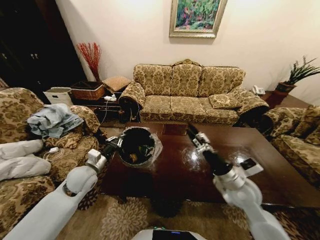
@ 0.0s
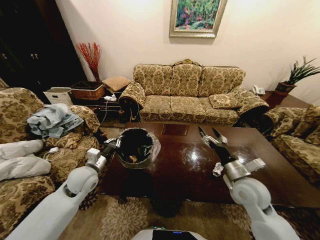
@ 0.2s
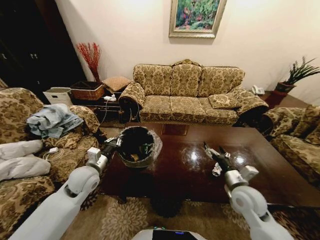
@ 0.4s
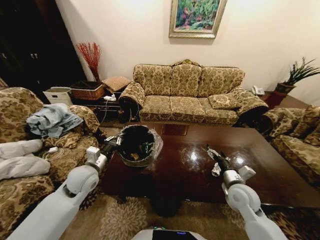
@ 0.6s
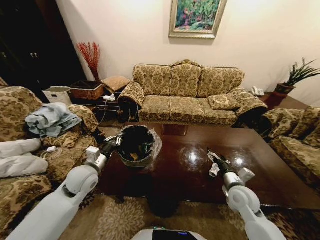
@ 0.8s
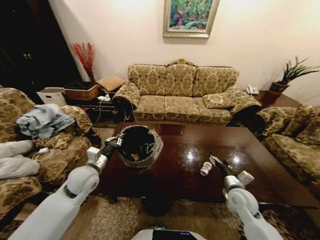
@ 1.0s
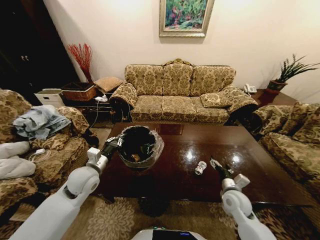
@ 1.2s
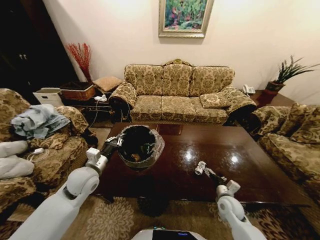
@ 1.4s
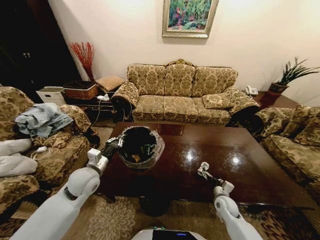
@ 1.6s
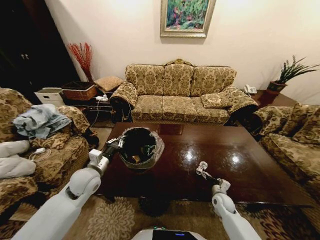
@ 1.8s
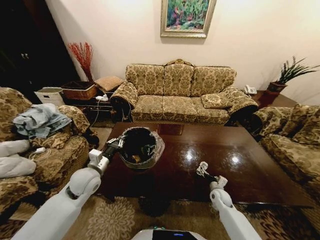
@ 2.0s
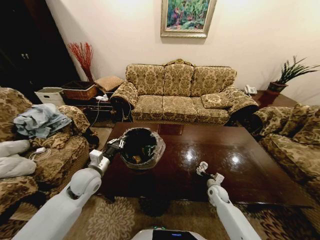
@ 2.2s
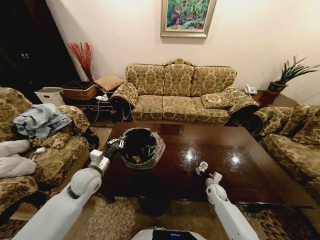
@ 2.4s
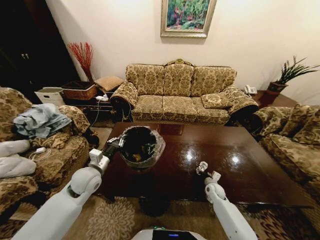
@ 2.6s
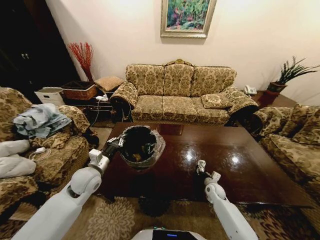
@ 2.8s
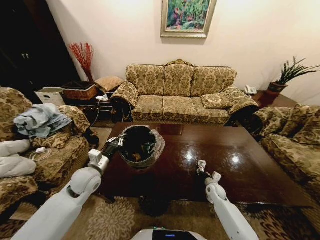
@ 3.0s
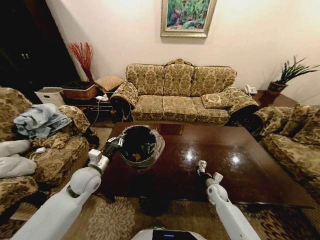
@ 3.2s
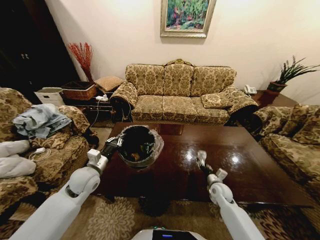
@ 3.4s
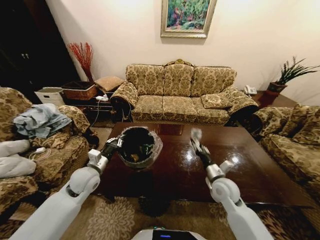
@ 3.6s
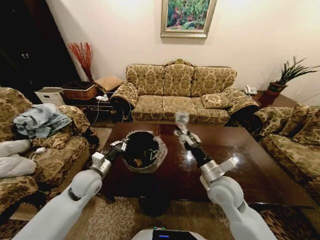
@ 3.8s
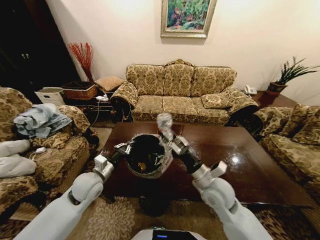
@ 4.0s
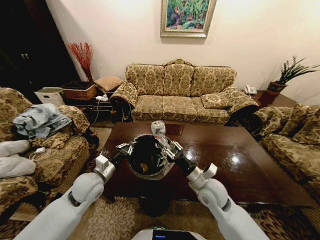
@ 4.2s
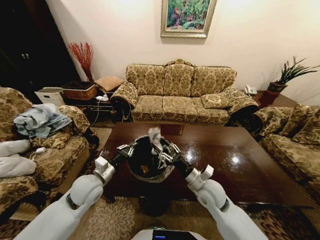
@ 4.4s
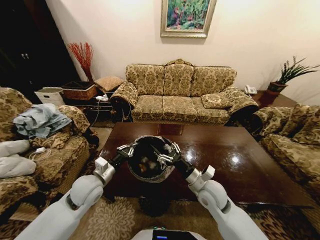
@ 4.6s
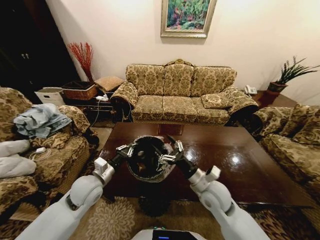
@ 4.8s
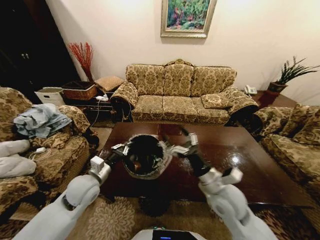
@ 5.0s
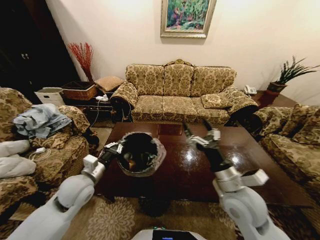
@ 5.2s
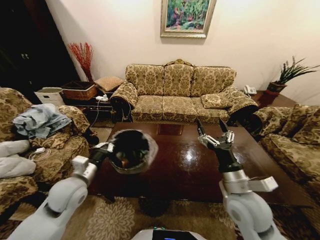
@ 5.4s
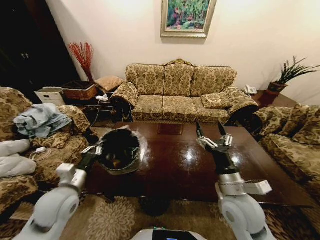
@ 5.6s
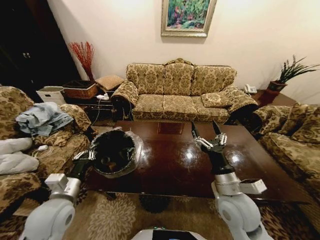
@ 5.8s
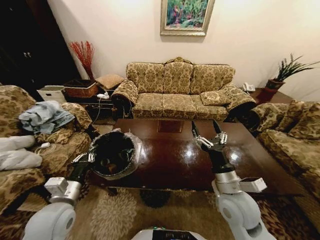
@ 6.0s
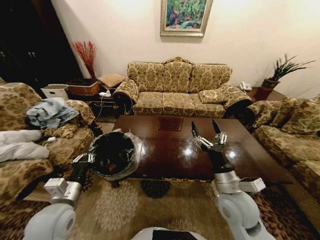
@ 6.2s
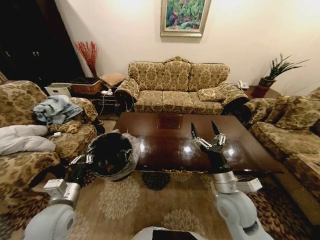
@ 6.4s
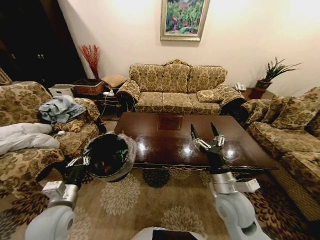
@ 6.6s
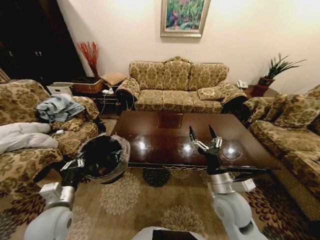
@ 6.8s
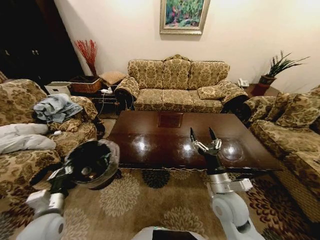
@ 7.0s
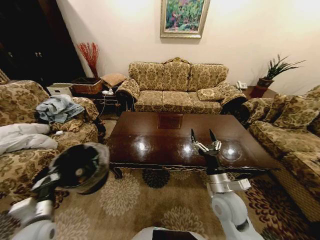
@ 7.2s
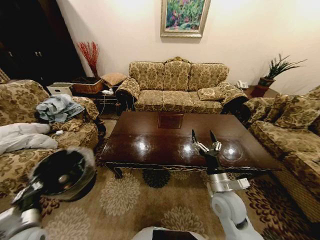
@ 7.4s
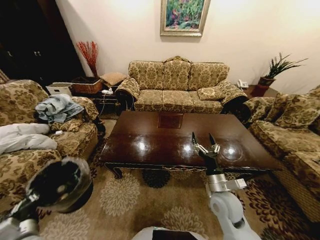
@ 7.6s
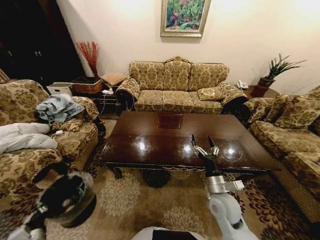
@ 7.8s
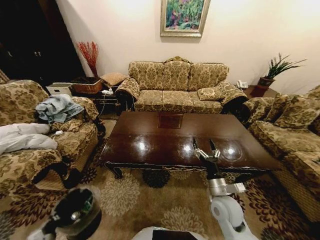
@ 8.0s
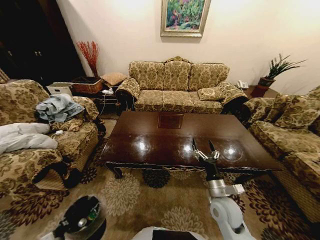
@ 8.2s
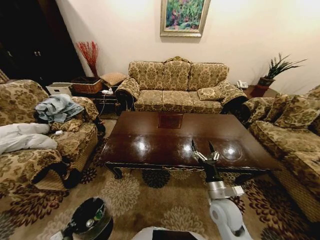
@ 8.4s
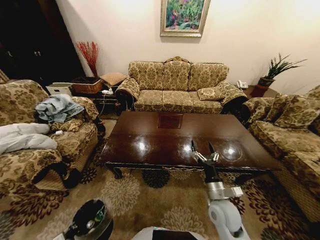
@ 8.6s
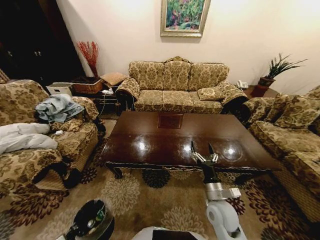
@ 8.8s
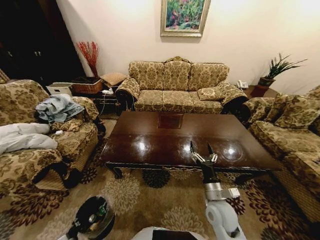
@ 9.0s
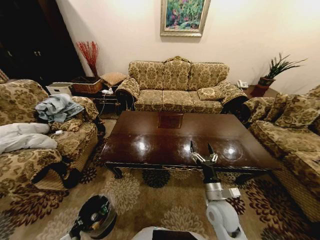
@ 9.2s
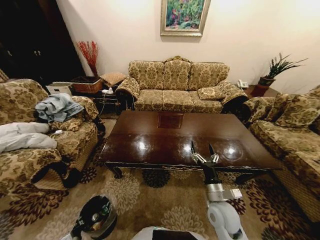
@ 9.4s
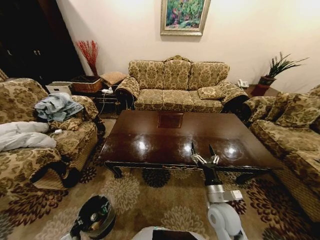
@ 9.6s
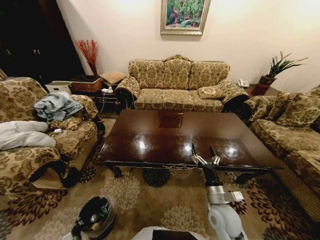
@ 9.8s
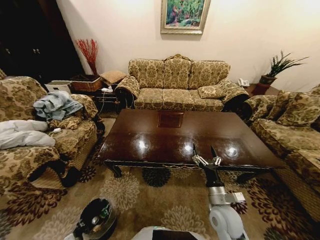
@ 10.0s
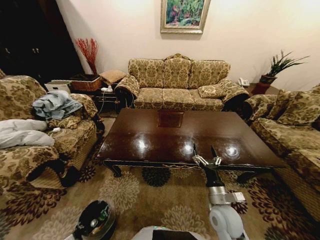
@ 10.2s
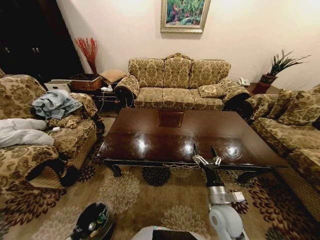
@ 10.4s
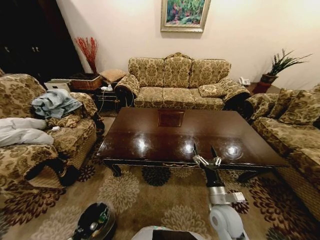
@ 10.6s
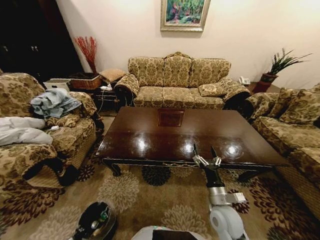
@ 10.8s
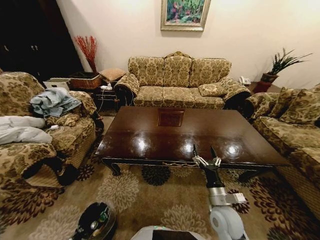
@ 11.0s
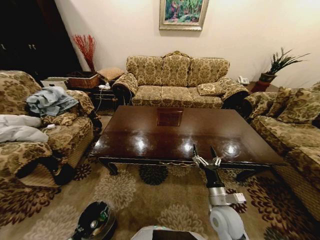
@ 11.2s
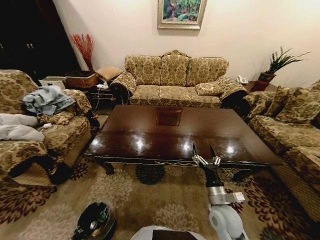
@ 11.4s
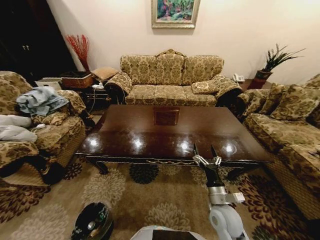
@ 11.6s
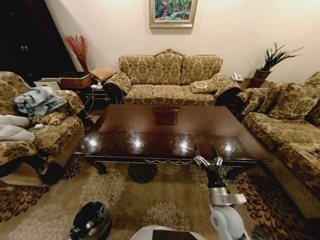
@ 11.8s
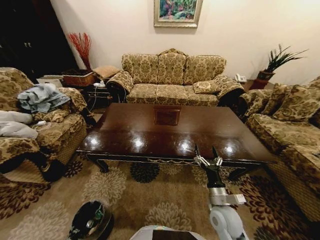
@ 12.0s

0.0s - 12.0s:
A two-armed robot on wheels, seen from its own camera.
Task of the whole recording: Move to the front of the table and place the trash on the table into the trash bin.
0.0s - 1.6s: The right gripper heads downward, covering approximately 25 cm.
1.6s - 3.0s: The right gripper heads forward, covering approximately 10 cm, and closes.
3.0s - 4.4s: The right gripper moves upward and to the left, roughly 25 cm.
4.4s - 6.0s: The left gripper travels backward by about 10 cm. The right gripper shifts roughly 10 cm upward and backward, and opens.
6.0s - 7.6s: The left gripper moves to the left, downward and backward, approximately 20 cm; the right gripper goes roughly 10 cm downward.
7.6s - 9.0s: The left gripper shifts about 30 cm downward.

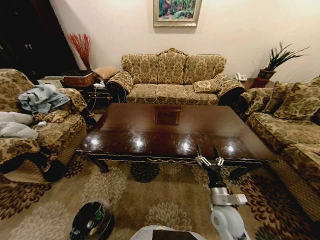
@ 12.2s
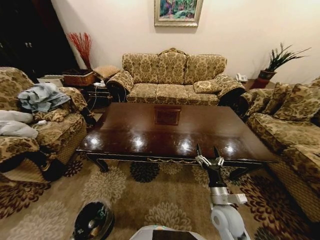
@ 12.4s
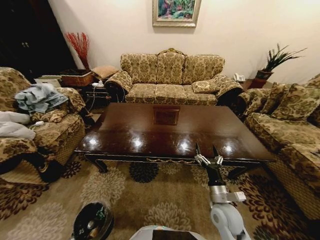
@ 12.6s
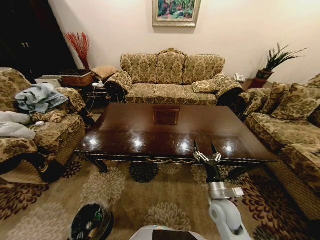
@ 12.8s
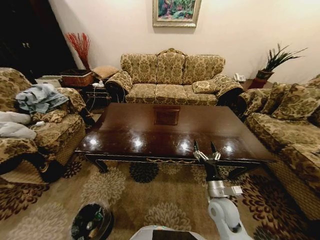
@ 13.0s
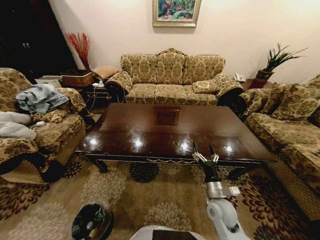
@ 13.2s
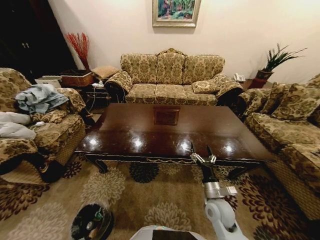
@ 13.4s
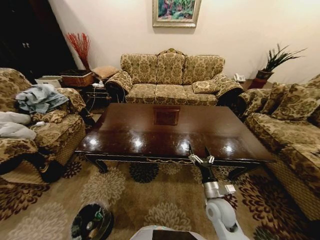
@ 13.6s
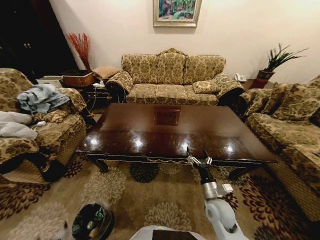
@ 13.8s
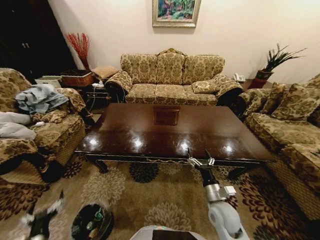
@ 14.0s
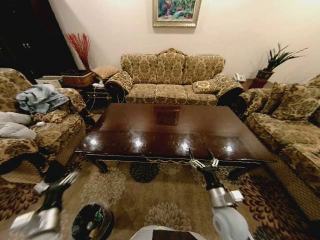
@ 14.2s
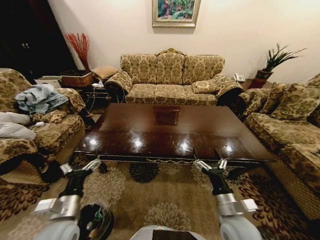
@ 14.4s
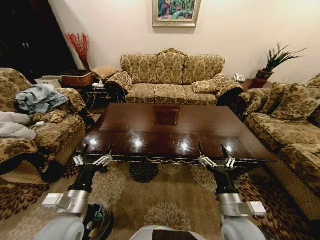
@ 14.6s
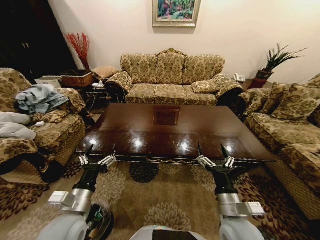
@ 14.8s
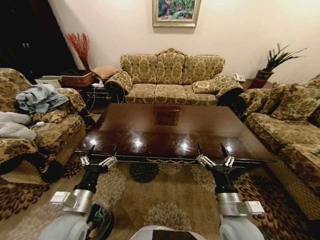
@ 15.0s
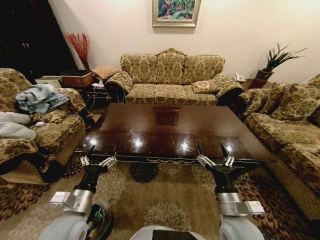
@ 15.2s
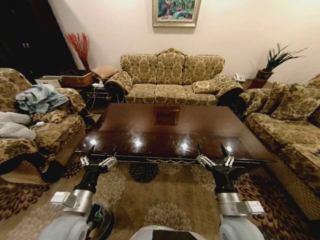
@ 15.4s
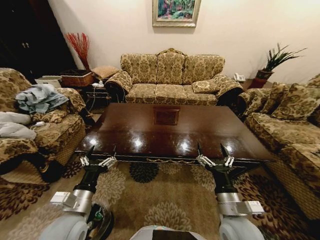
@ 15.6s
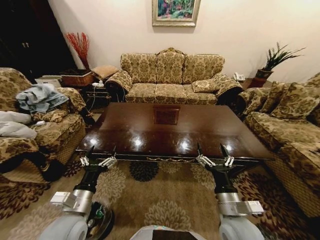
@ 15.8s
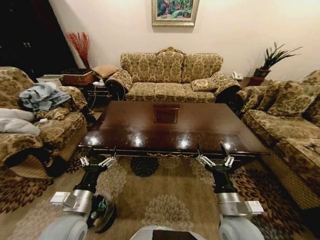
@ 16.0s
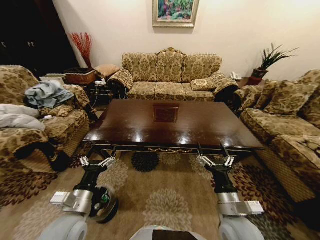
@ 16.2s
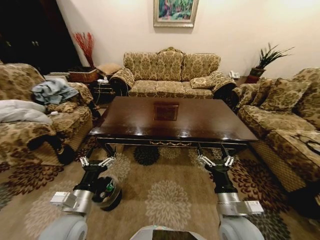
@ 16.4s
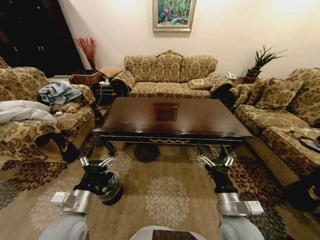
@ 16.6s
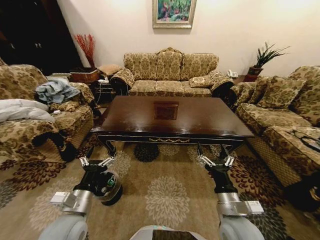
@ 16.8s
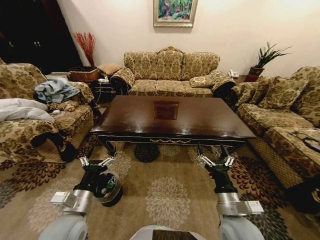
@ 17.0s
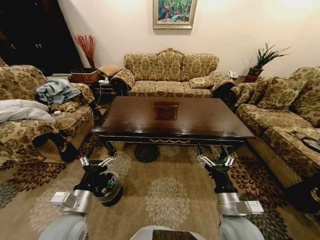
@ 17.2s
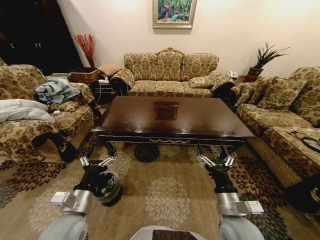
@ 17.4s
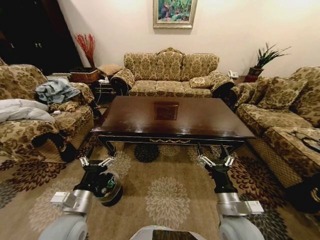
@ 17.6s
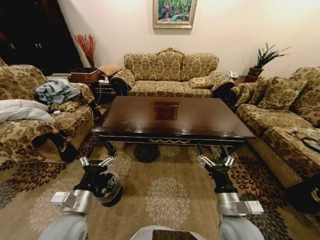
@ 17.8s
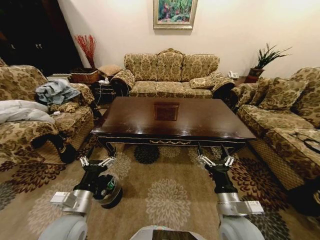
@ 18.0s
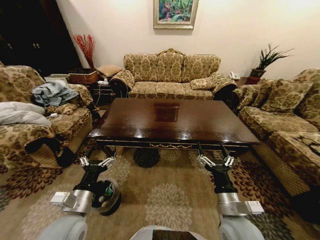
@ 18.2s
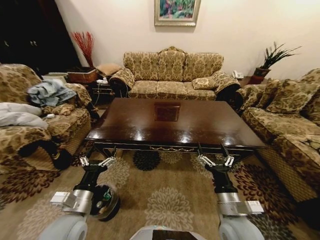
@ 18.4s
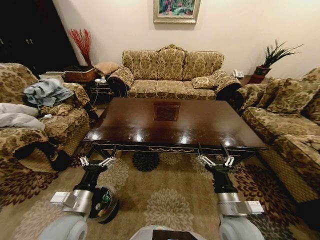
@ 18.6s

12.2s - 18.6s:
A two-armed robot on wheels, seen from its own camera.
Task of the whole recording: Move to the front of the table and place the trash on the table into the trash bin.
12.2s - 13.8s: The left gripper is displaced upward by about 25 cm, and opens.
13.8s - 15.4s: The left gripper goes about 30 cm upward, forward and to the right. Meanwhile the right gripper goes some 10 cm upward and backward.

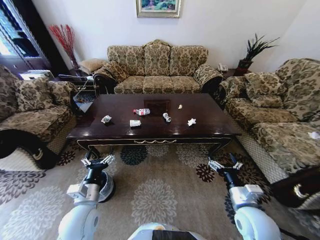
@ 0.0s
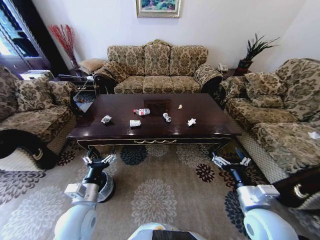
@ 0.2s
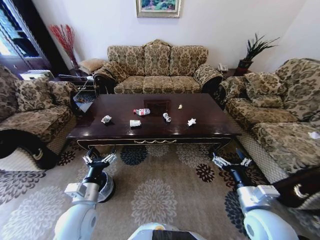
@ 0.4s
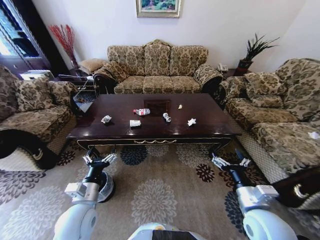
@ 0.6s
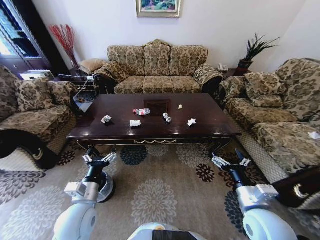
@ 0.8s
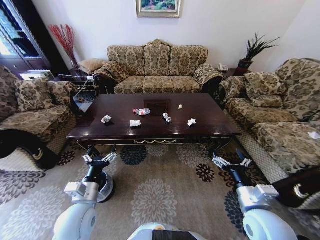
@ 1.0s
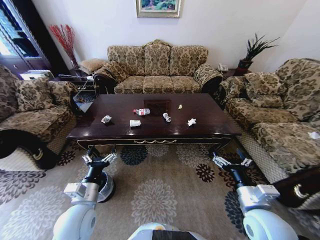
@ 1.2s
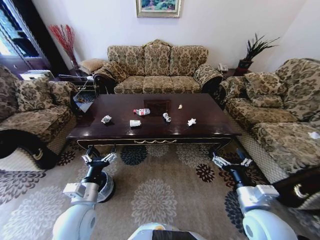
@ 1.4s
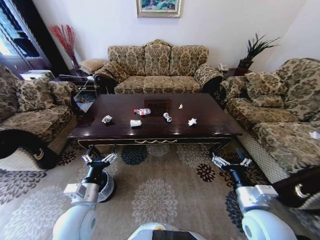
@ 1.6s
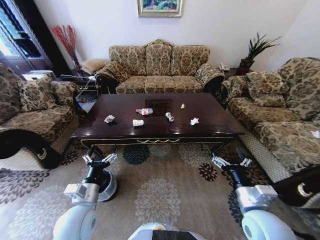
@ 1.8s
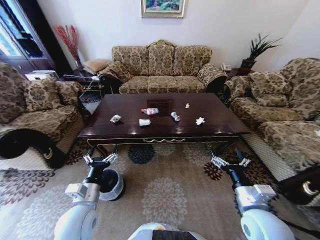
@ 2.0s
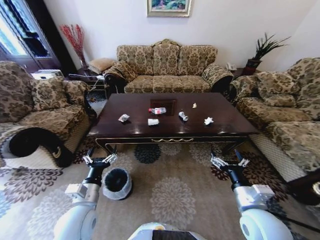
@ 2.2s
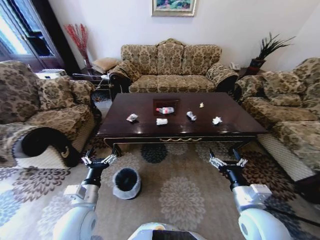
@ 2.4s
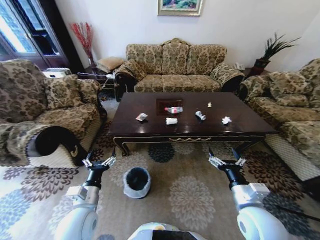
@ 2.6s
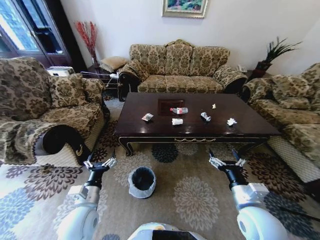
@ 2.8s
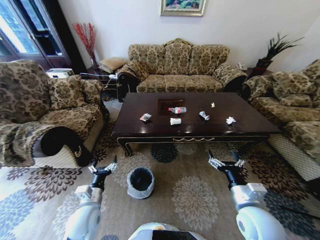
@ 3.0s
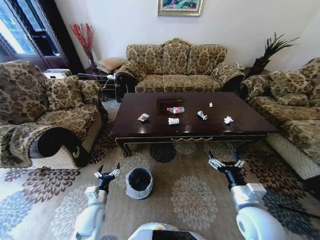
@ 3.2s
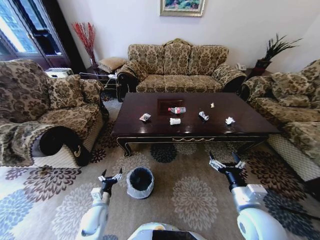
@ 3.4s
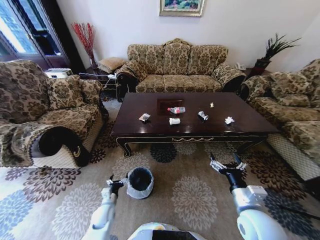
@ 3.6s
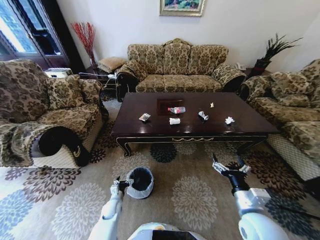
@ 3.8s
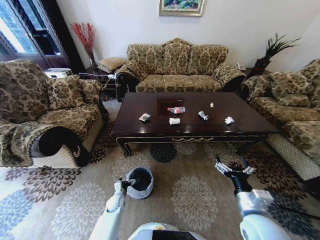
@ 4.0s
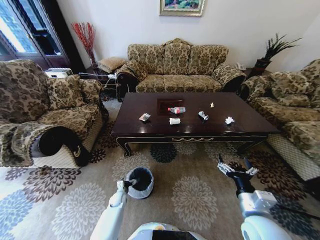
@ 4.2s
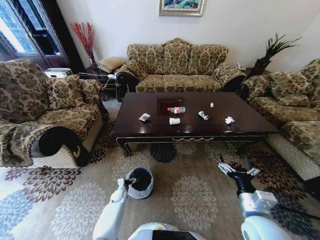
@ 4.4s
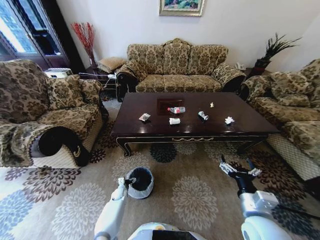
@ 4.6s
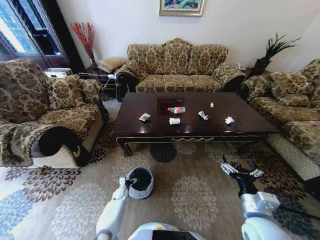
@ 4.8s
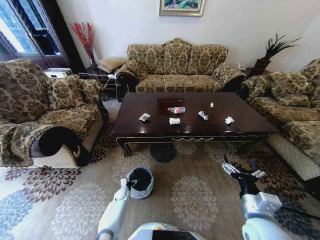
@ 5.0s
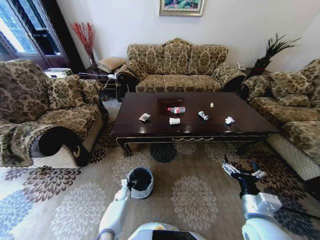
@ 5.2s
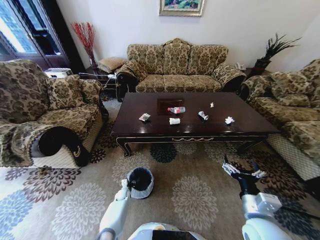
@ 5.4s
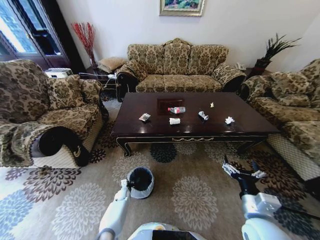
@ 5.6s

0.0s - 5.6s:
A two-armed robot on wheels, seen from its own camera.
Task of the whole recording: Move to the front of the table and place the trash on the table into the trash bin.
2.8s - 4.2s: The left gripper goes some 30 cm downward and forward.
4.2s - 5.6s: The left gripper shifts roughly 5 cm downward, and closes its fingers.
